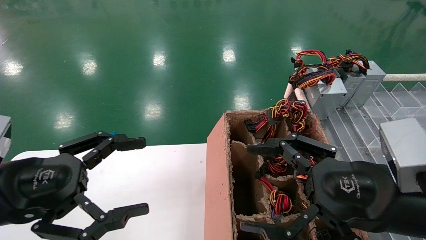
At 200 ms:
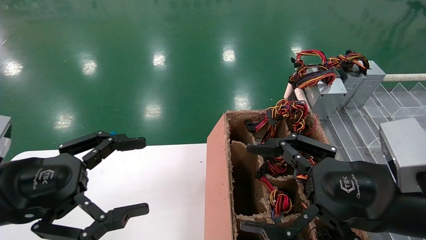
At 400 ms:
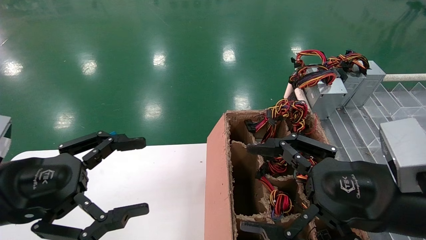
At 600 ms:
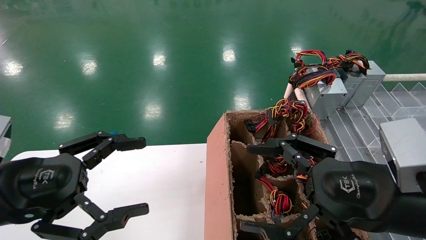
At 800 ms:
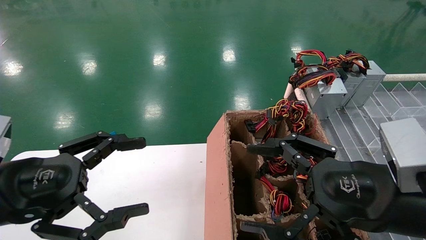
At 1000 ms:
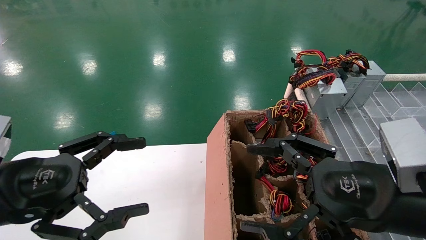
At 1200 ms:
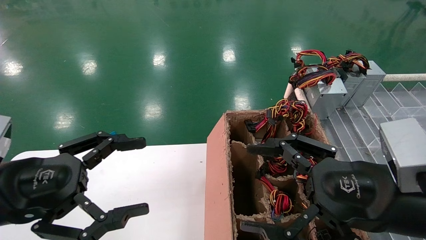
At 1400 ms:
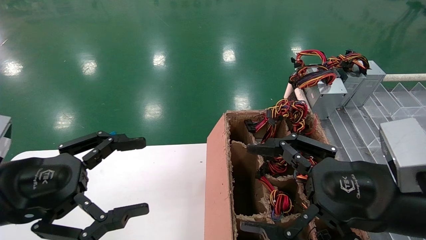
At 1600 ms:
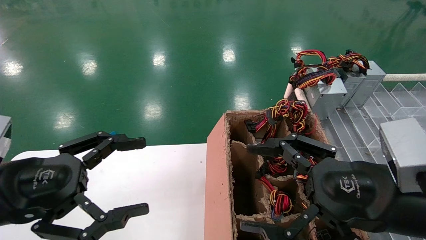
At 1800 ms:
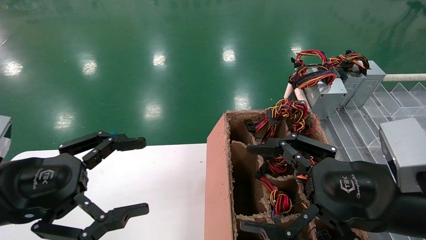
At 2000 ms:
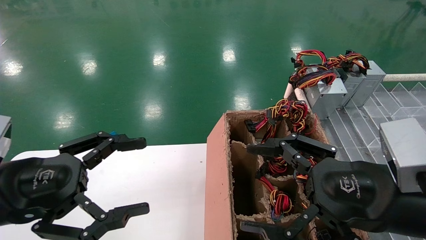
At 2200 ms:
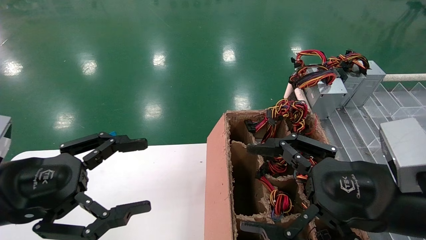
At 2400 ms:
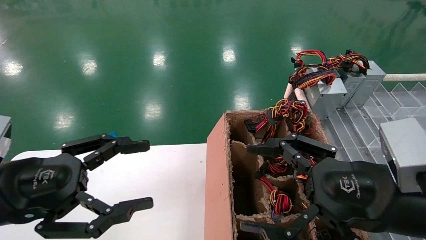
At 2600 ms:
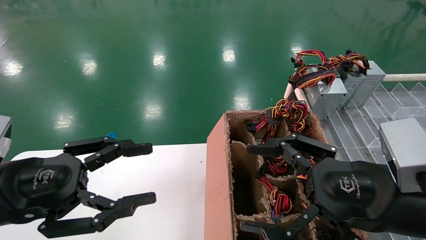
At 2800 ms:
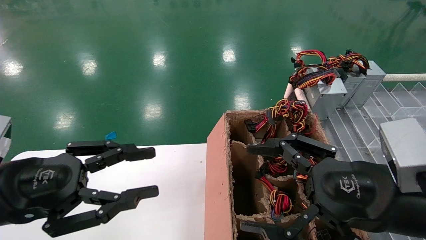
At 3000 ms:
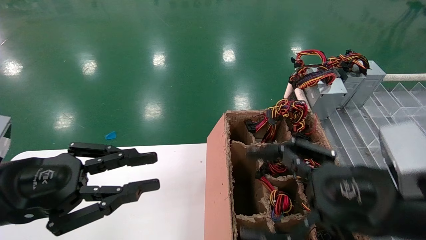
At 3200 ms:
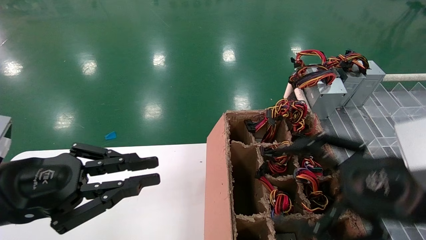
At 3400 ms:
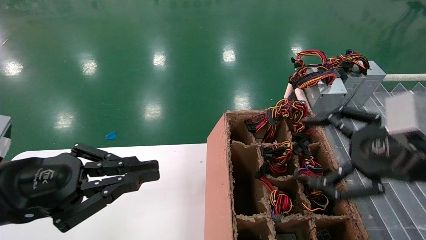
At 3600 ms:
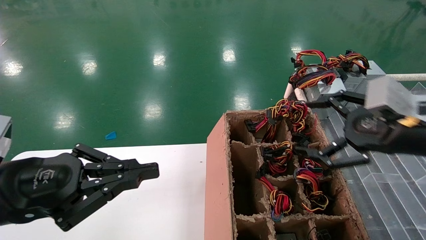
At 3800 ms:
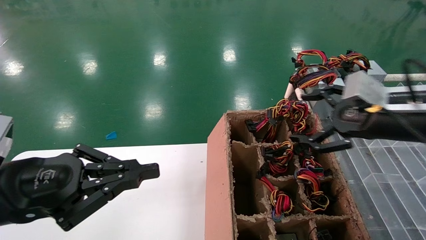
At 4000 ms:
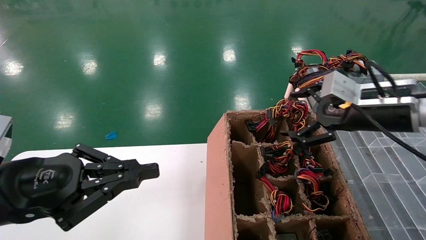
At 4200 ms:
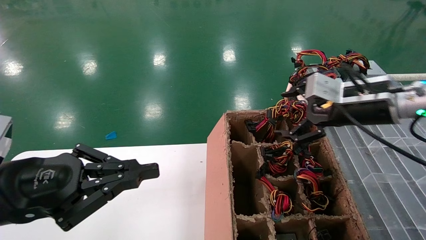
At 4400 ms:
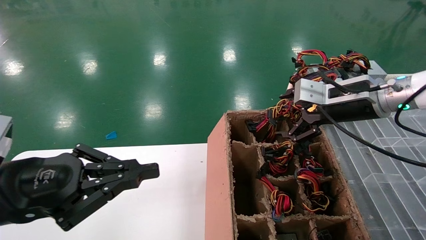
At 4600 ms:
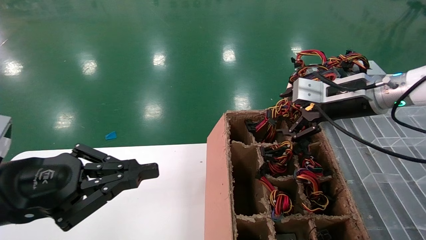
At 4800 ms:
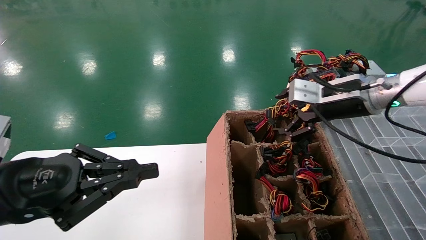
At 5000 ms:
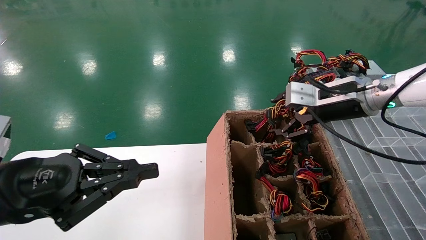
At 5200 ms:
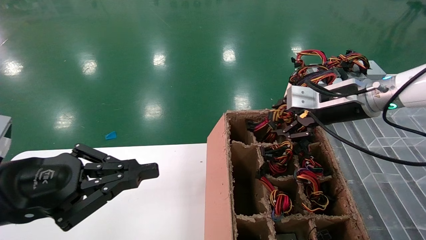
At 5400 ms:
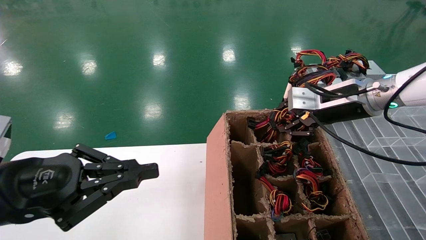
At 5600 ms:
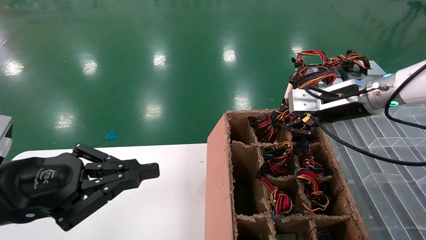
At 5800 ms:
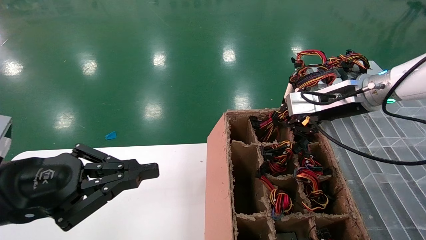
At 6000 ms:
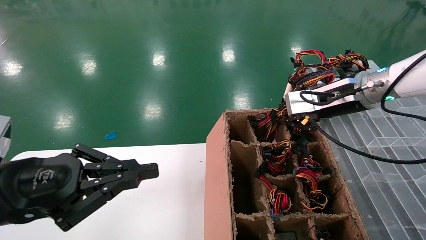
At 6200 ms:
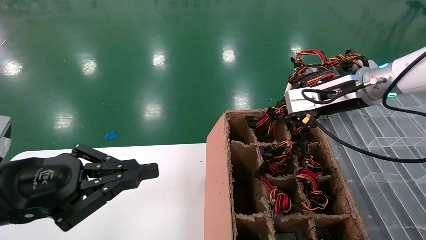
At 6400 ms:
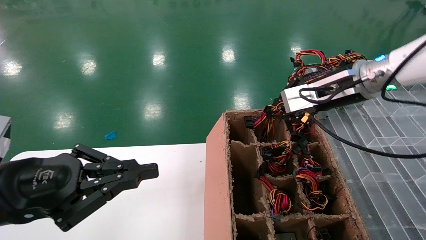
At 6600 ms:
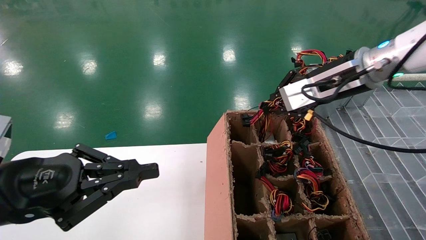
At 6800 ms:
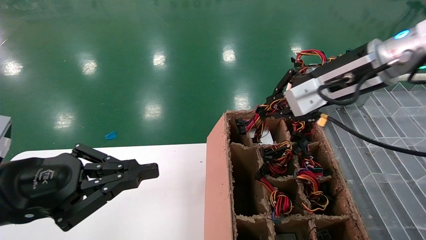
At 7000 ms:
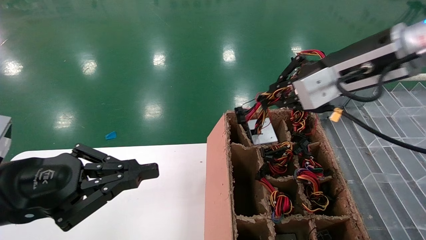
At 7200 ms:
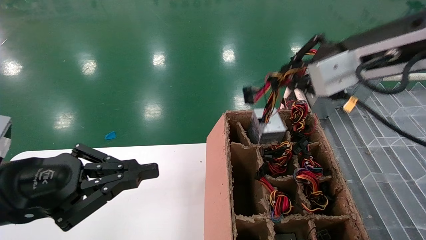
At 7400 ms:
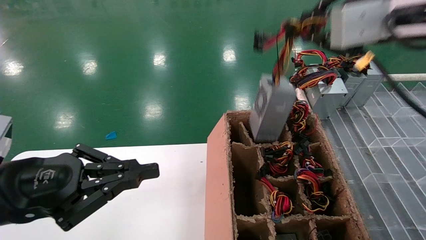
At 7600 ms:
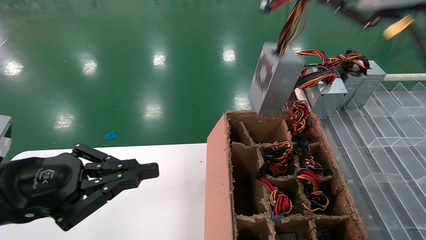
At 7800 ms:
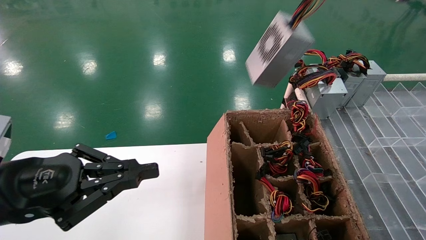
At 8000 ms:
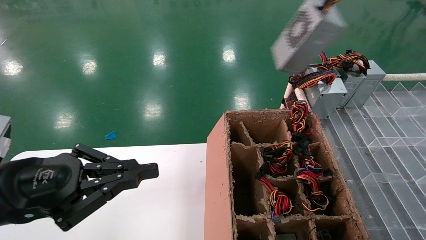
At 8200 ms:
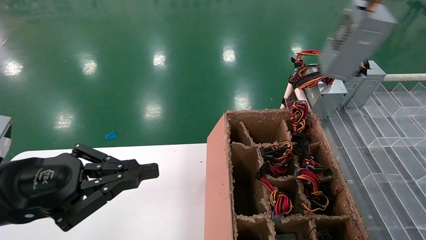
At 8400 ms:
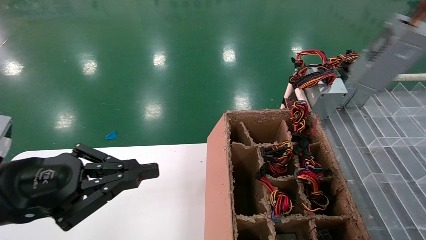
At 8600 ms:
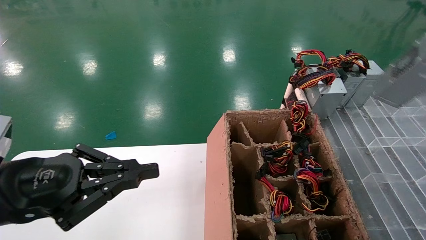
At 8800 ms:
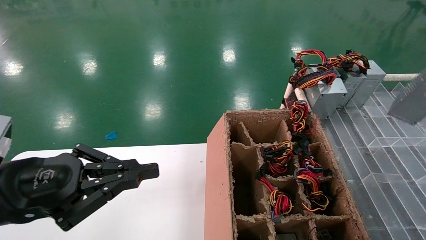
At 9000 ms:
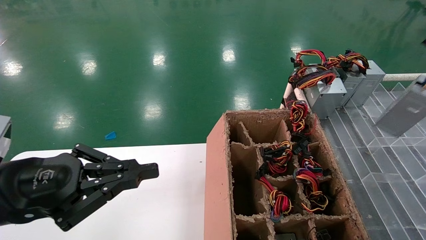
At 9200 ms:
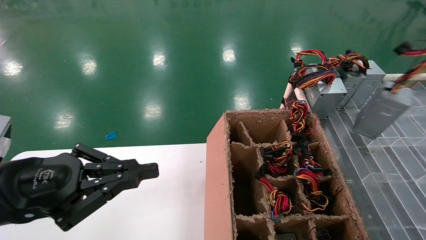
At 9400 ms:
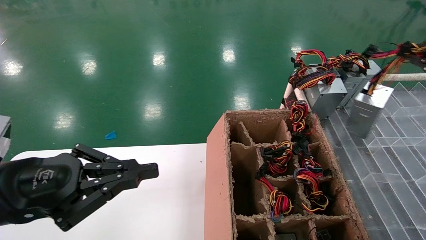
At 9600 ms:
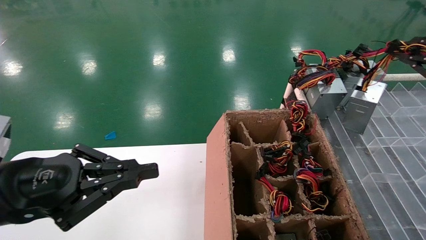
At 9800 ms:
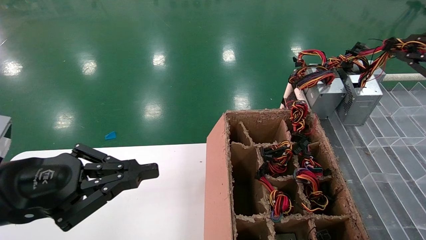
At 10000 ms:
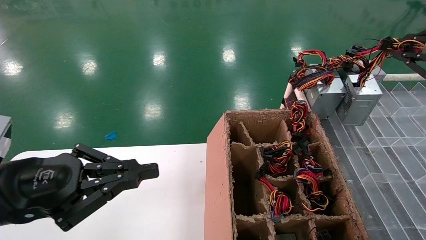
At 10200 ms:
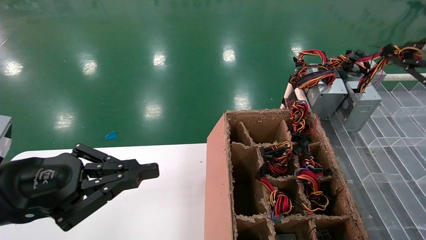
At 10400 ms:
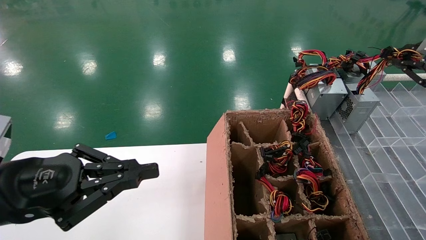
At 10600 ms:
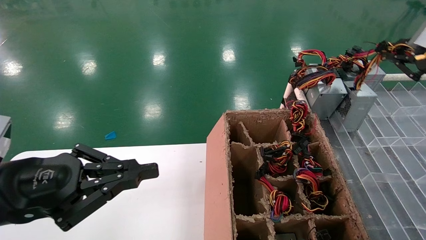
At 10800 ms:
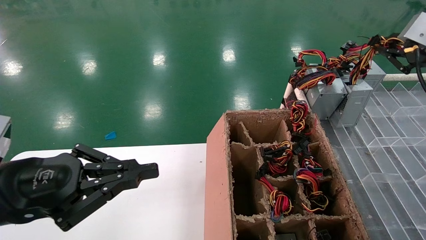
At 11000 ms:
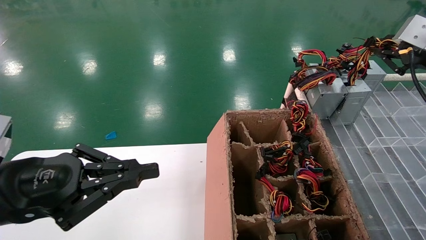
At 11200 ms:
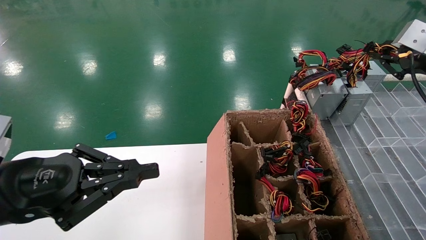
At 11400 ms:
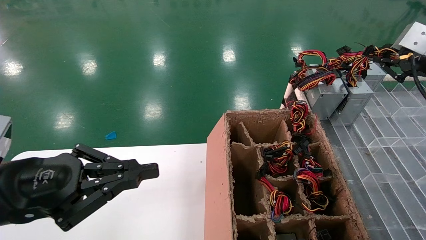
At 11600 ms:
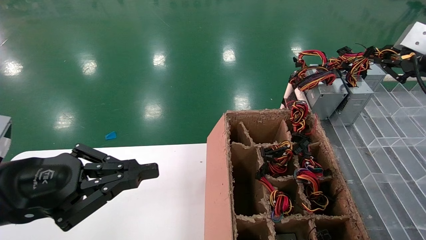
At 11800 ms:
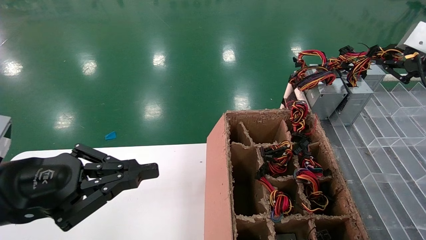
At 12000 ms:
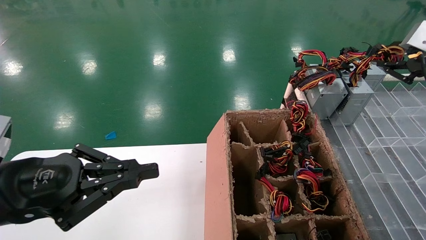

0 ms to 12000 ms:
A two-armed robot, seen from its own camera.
Step, 3400 ms to 5800 ms: Grab the main unit power supply from the containment box.
0 ms to 1600 ms: The two grippers keep their place.
1600 ms to 3000 ms: The left gripper closes its fingers.
3000 ms to 4400 ms: The left gripper closes its fingers. The right gripper heads forward, covering roughly 20 cm.
4400 ms to 6000 ms: The right gripper closes up.
6000 ms to 7600 ms: The right gripper travels backward and upward by about 25 cm.
7600 ms to 9000 ms: The right gripper travels to the right by some 20 cm.
9000 ms to 10400 ms: The right gripper shifts roughly 10 cm forward.
10400 ms to 12000 ms: The grippers make only small movements.

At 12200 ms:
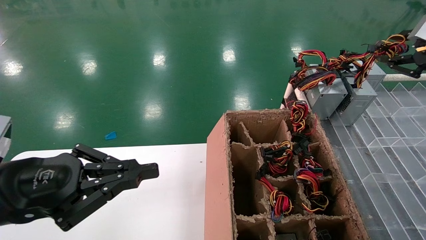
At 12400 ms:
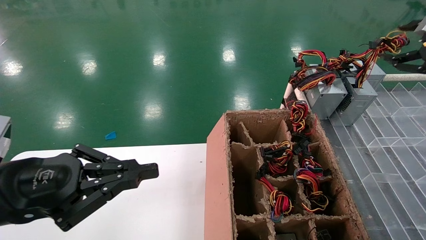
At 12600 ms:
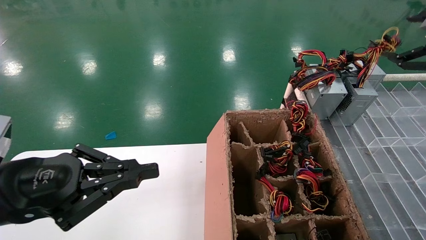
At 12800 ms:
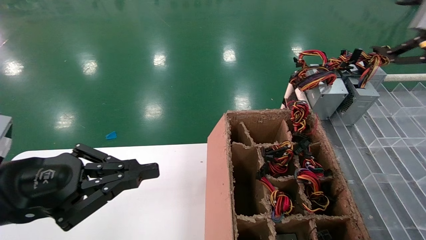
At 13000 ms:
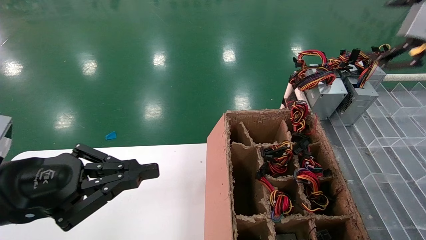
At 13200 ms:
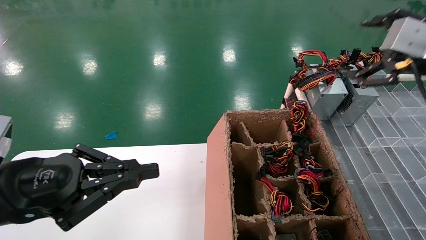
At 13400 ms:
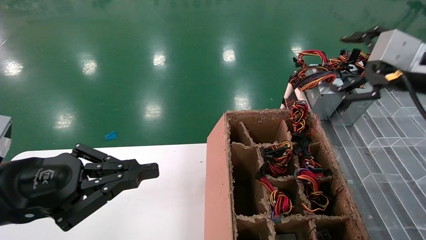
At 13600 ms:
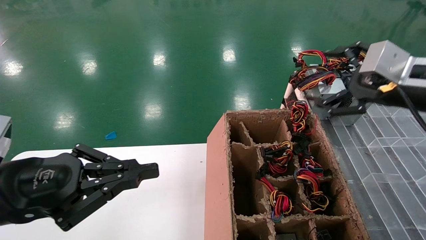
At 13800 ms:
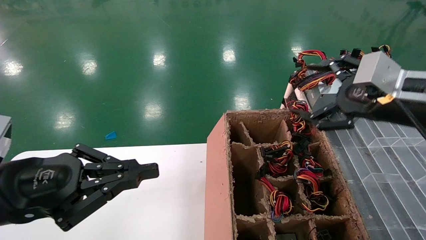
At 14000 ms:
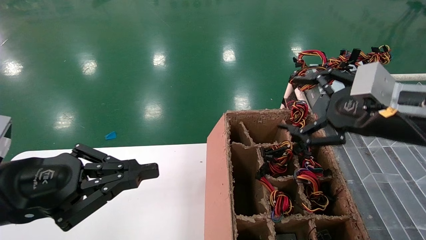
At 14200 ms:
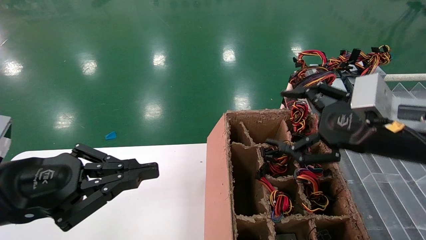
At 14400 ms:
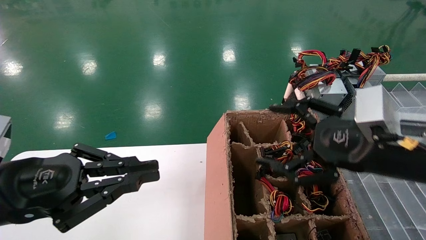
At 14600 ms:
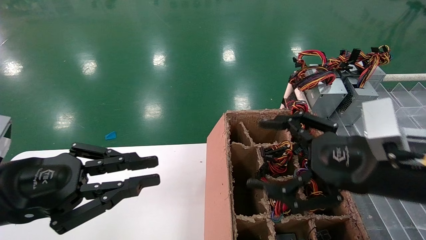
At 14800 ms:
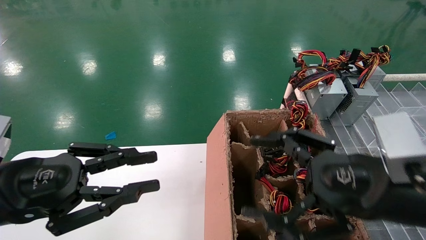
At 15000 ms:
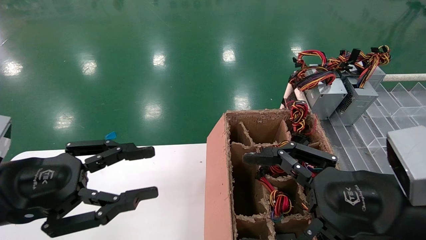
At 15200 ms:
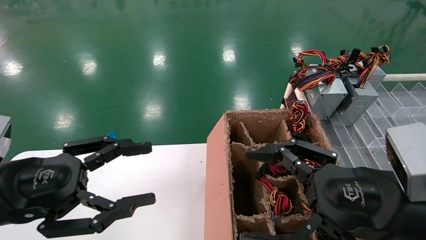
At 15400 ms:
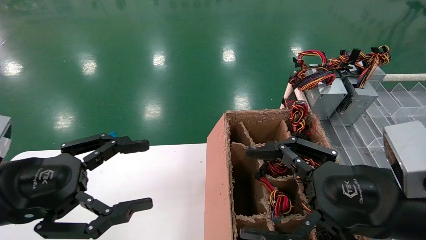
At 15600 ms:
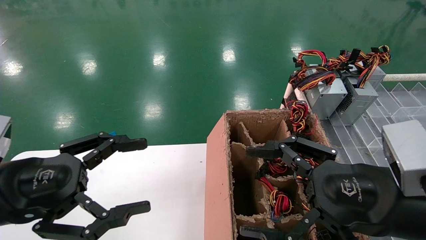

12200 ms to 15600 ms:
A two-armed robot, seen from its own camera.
12200 ms to 13800 ms: The right gripper goes about 15 cm to the left and downward, and opens.
13800 ms to 15600 ms: The right gripper moves backward, downward and to the left, roughly 15 cm. Meanwhile the left gripper opens.
